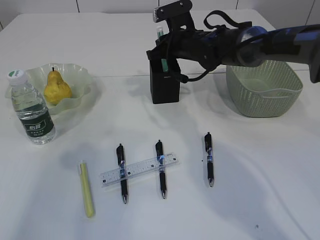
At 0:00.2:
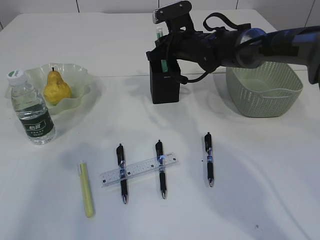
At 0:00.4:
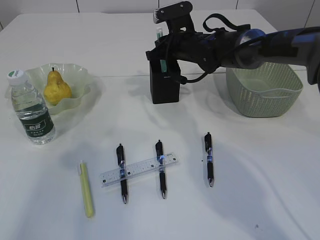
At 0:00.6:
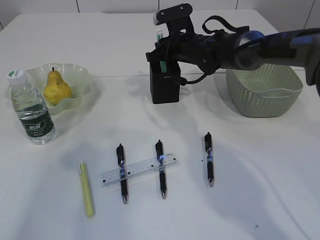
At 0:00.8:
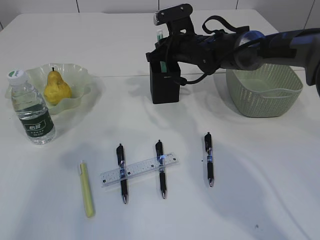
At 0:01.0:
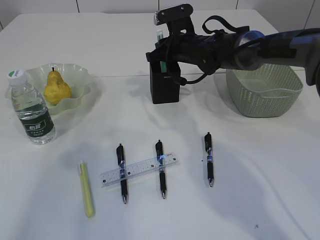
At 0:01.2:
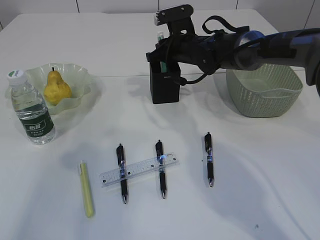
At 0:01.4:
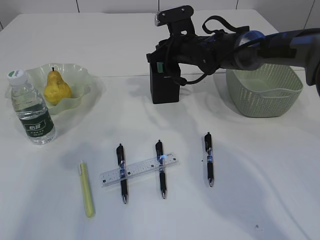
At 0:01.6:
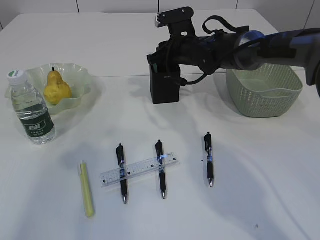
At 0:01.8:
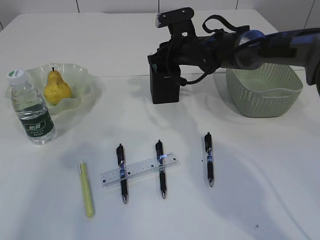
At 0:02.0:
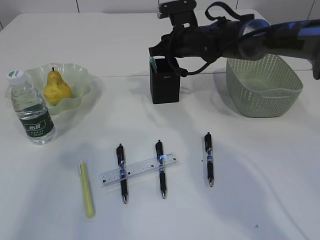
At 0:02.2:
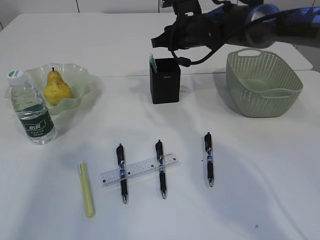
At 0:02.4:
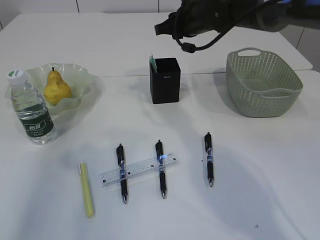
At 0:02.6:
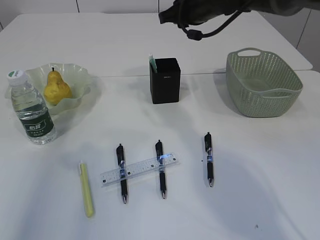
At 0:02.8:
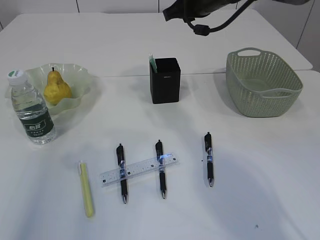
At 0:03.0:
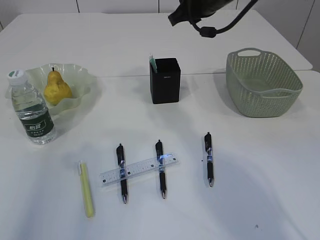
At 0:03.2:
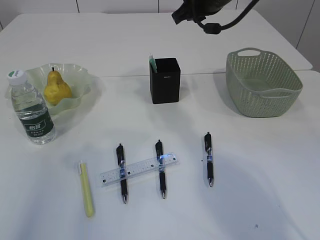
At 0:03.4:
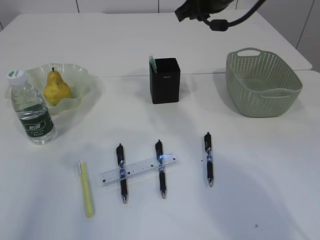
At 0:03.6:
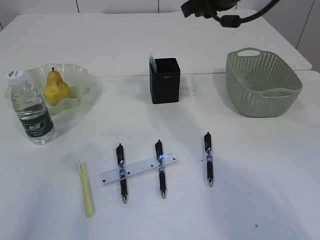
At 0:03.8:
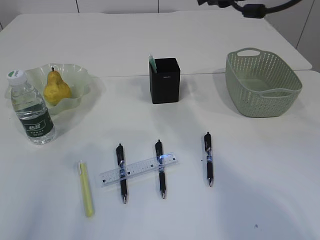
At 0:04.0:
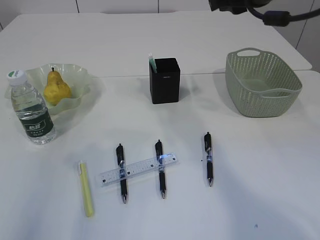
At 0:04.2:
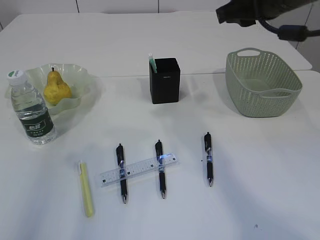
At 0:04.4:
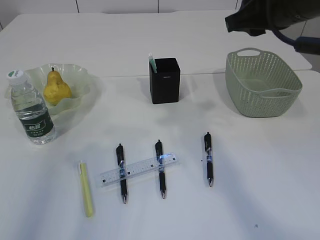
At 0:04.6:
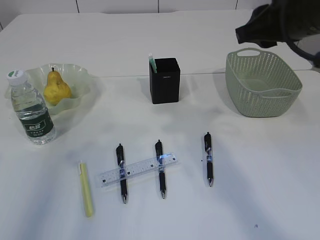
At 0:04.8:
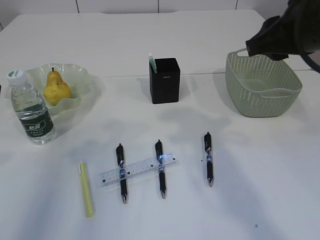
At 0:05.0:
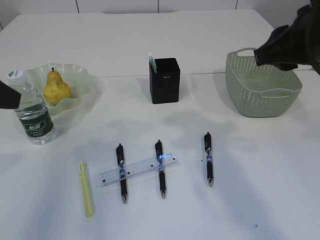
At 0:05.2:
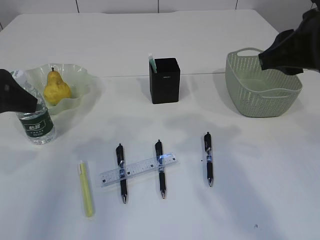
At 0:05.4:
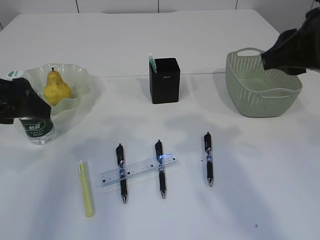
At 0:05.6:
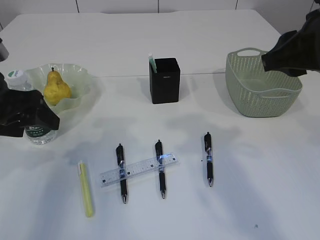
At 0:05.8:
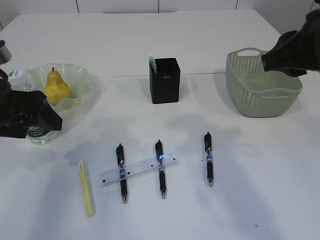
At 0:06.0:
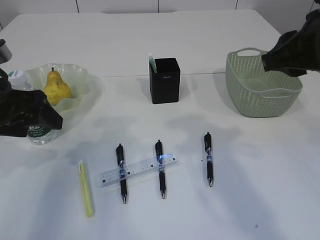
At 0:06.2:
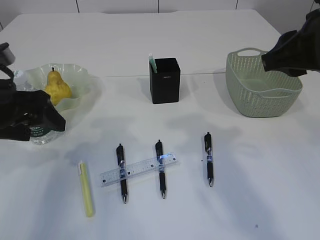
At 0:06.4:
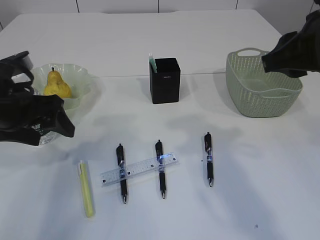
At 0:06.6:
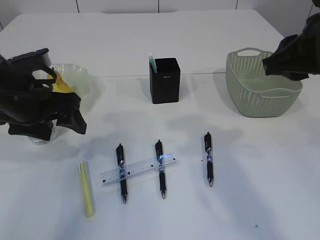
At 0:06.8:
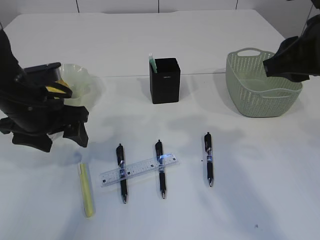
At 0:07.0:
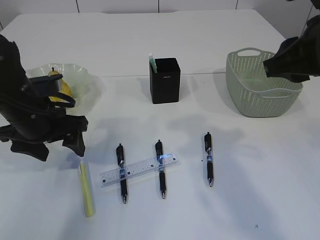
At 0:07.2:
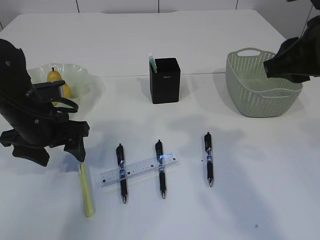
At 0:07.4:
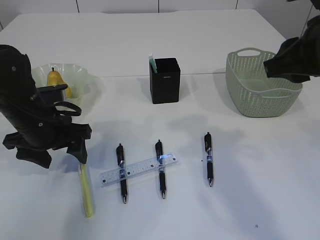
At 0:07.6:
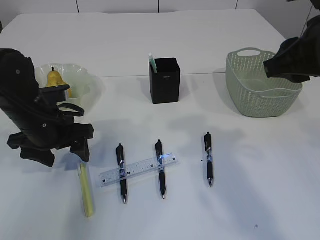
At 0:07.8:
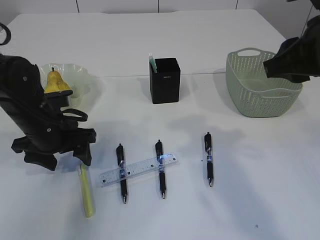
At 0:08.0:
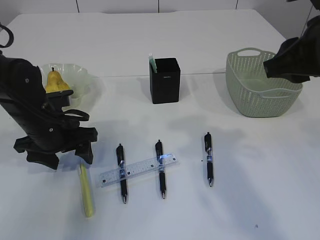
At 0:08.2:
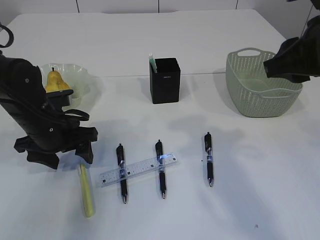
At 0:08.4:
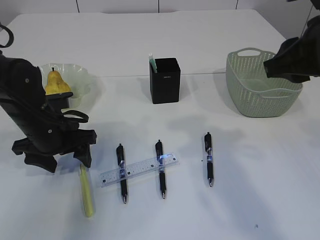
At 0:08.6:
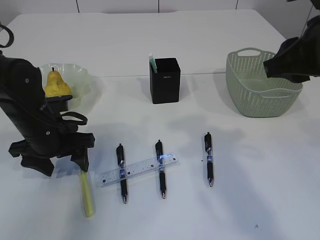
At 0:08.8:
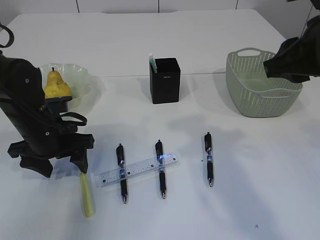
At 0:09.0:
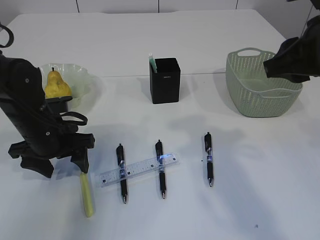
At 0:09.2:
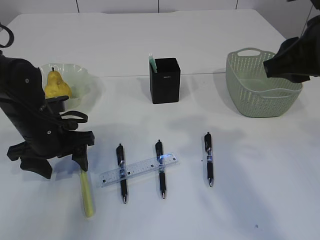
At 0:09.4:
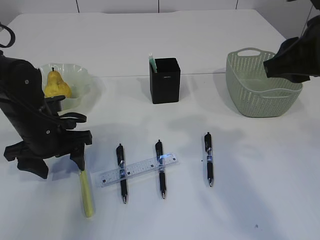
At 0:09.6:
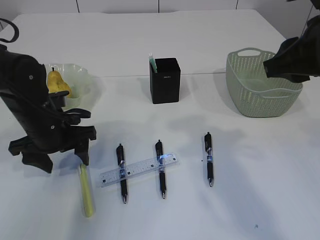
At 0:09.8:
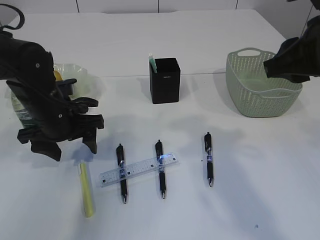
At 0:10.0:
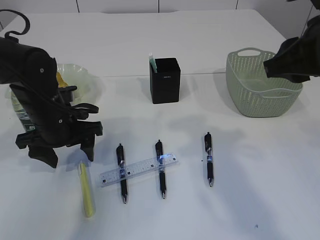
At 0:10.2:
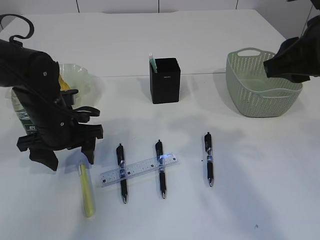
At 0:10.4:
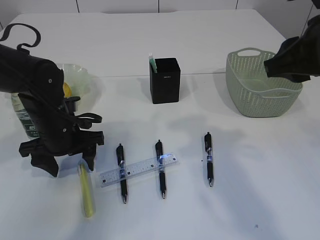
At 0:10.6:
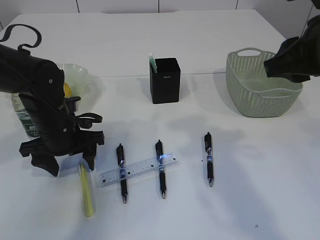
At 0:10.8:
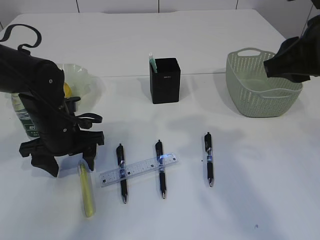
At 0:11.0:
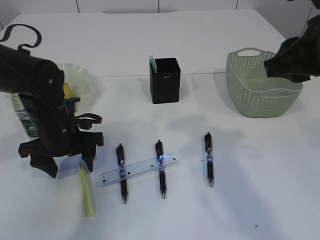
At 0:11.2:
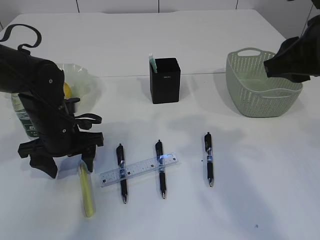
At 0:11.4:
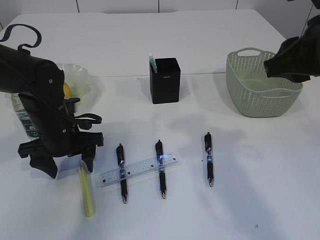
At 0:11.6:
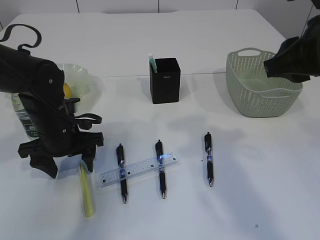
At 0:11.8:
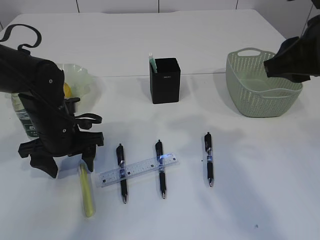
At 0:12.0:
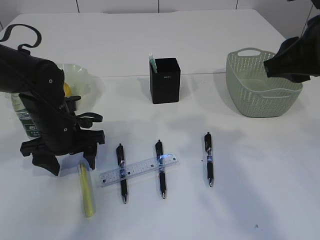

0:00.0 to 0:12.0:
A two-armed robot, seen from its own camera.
Step, 0:00.0 to 0:03.0: Place the blue knife into the pen holder.
0:00.0 to 0:01.6: The grippers stay close to where they were, moving slightly.
0:01.6 to 0:03.0: The right gripper goes some 15 cm upward.
0:03.0 to 0:04.4: The right gripper goes some 15 cm backward and to the right.
0:04.4 to 0:06.0: The left gripper shifts roughly 15 cm downward and forward. Meanwhile the right gripper moves backward, some 5 cm.
0:06.0 to 0:07.6: The left gripper heads downward and forward, covering roughly 10 cm.
0:07.6 to 0:10.4: The grippers make only small movements.
0:10.4 to 0:12.0: Both grippers stay about where they are.

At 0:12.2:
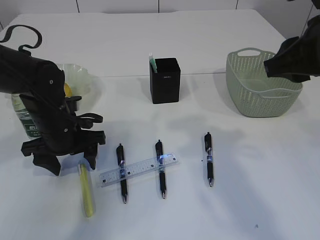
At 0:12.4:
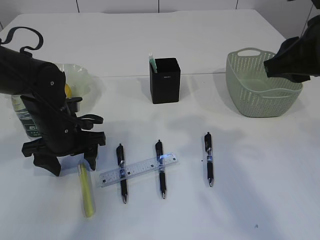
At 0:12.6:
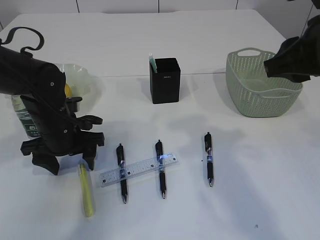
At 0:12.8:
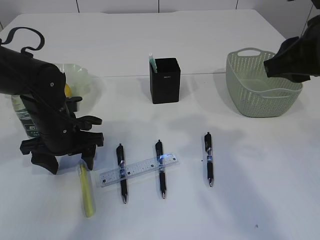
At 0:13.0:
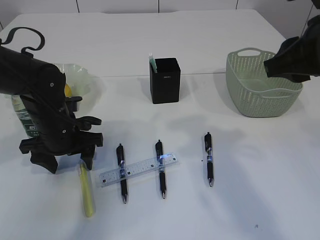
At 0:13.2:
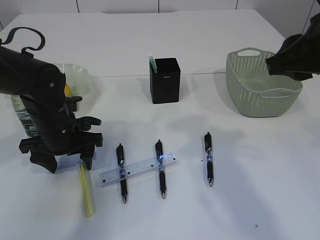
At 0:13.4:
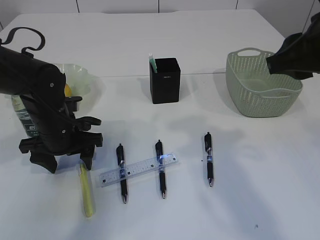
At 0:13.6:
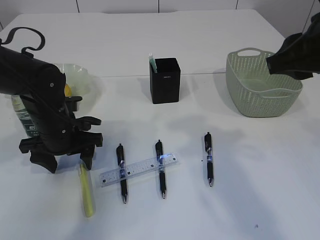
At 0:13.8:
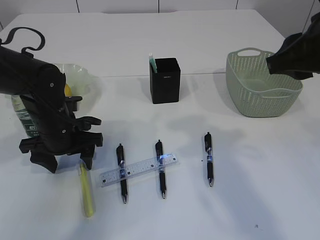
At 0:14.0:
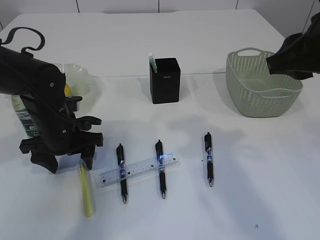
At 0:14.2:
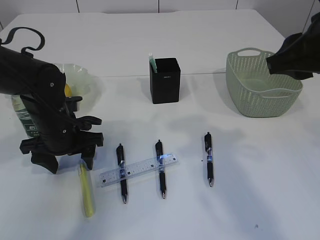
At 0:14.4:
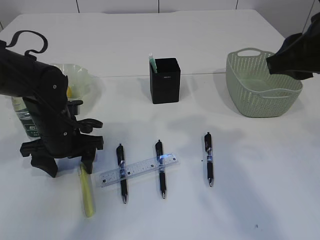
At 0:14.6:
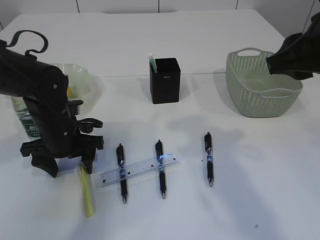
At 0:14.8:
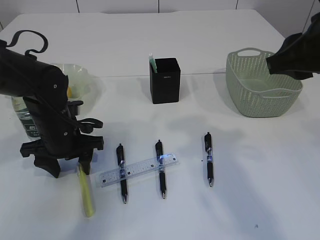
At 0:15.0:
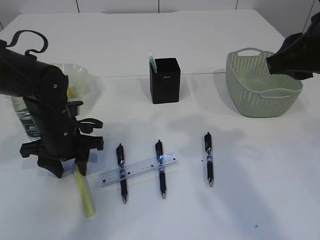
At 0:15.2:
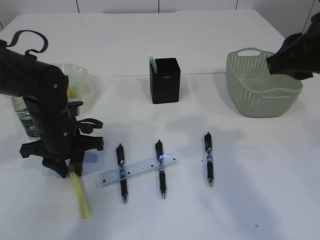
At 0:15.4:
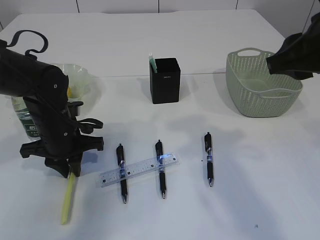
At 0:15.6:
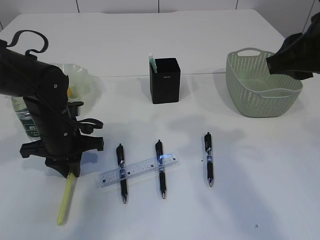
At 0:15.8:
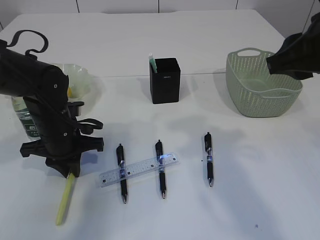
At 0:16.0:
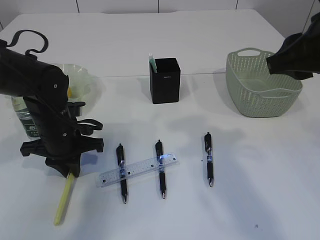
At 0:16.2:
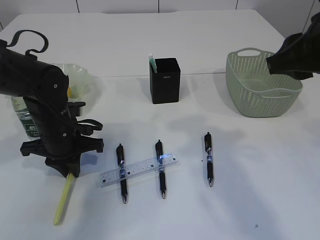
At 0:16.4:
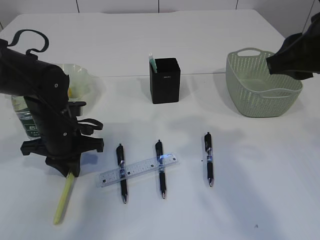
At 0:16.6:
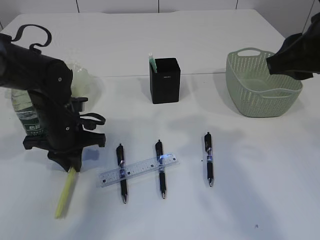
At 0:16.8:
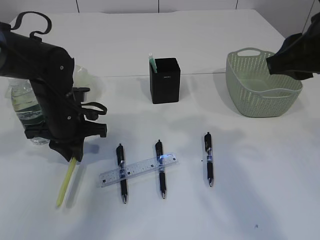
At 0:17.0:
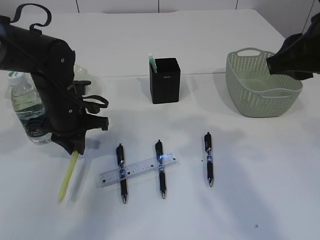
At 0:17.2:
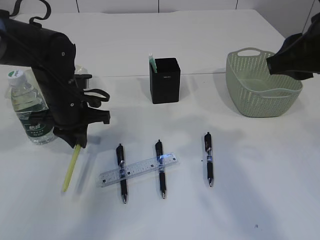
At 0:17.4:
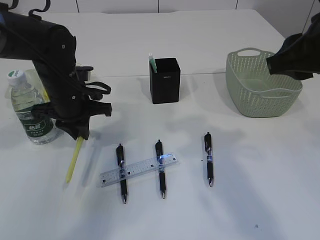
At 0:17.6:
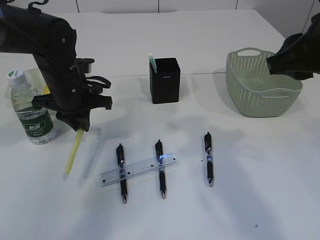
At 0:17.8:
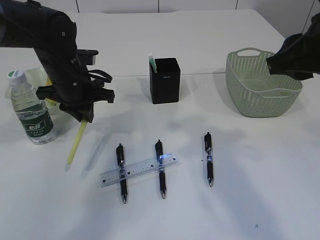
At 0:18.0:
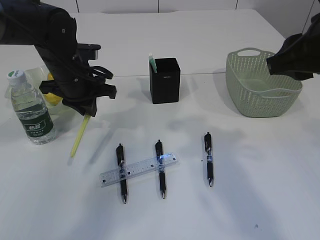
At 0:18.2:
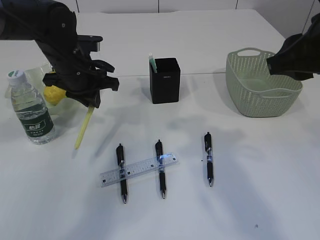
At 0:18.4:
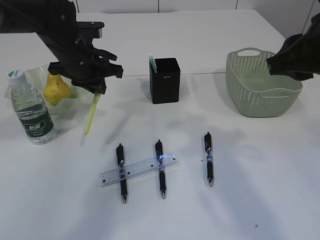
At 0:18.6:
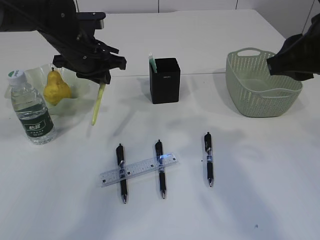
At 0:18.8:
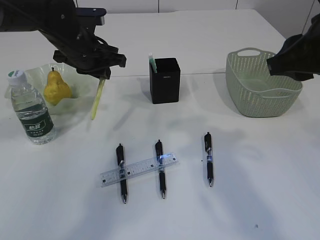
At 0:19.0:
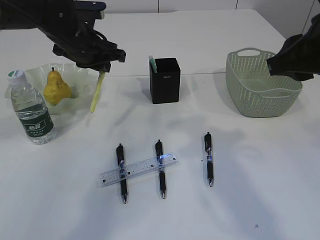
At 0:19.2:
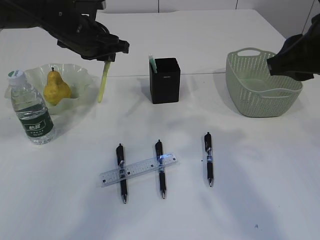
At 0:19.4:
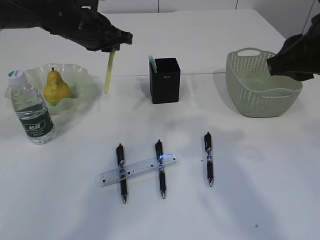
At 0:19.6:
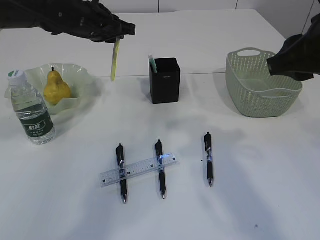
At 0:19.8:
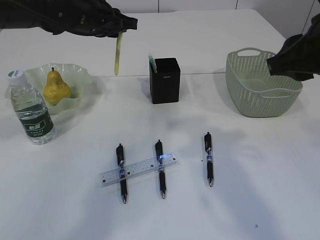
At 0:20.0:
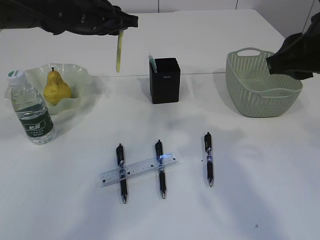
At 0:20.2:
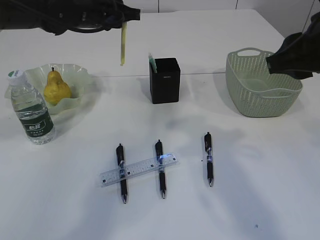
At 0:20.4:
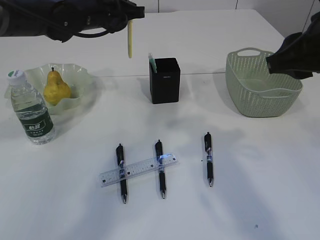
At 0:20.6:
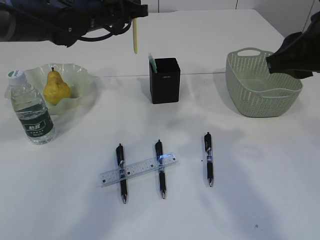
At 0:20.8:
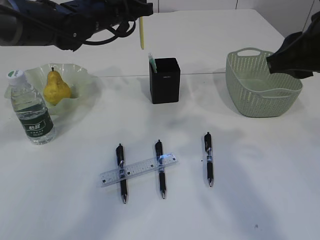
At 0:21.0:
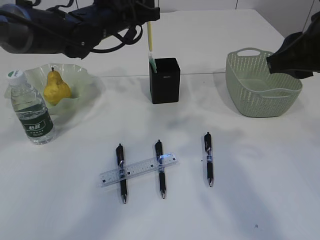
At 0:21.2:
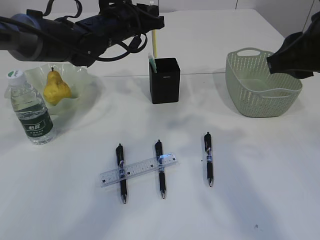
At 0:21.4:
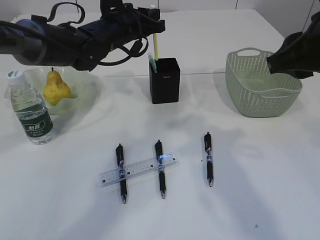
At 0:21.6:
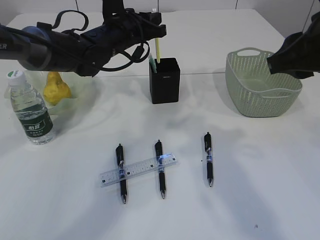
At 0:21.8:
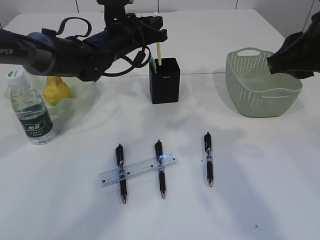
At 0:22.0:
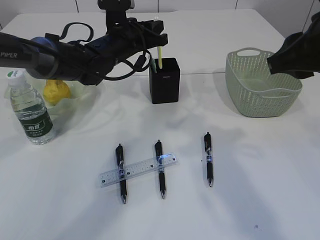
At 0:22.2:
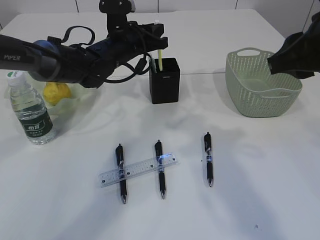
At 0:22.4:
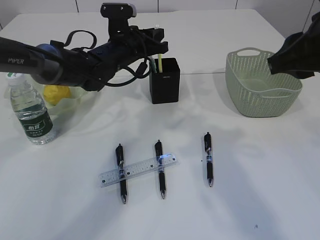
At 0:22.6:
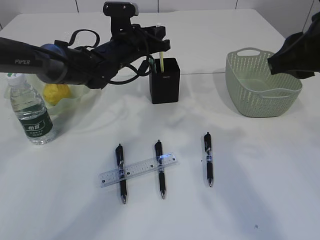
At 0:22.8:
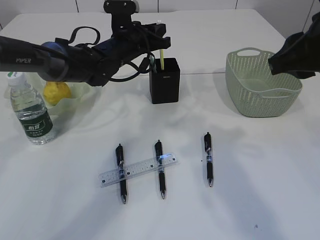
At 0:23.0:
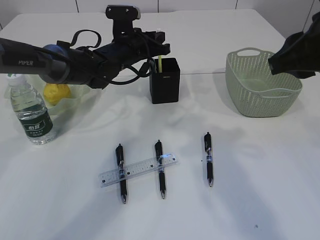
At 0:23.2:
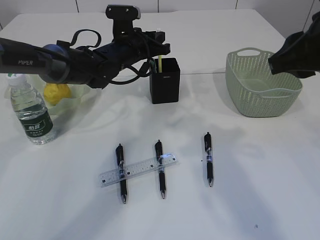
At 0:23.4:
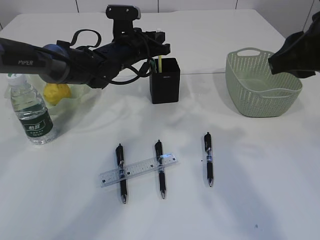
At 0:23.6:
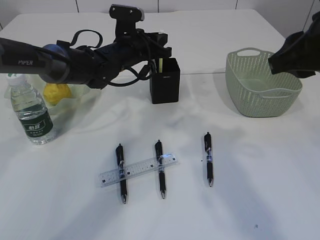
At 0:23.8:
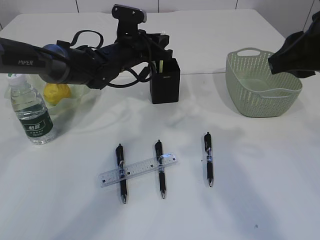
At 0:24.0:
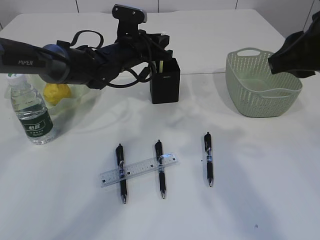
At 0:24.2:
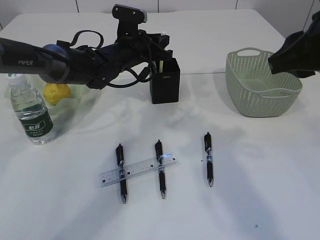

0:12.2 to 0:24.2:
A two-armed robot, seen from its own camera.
Step, 0:12.2 to 0:18.2: pick up the yellow knife.
0:12.2 to 0:13.8: Both grippers stay about where they are.
0:13.8 to 0:15.2: The left gripper closes up.
0:15.2 to 0:16.6: Both grippers stay about where they are.
0:16.6 to 0:18.2: The left gripper shifts approximately 10 cm upward and forward.
0:18.2 to 0:19.8: The left gripper travels upward by roughly 5 cm.
0:19.8 to 0:21.2: The left gripper moves some 5 cm.
0:21.2 to 0:22.6: The left gripper goes roughly 5 cm downward.
0:22.6 to 0:24.2: The grippers stay close to where they were, moving slightly.
